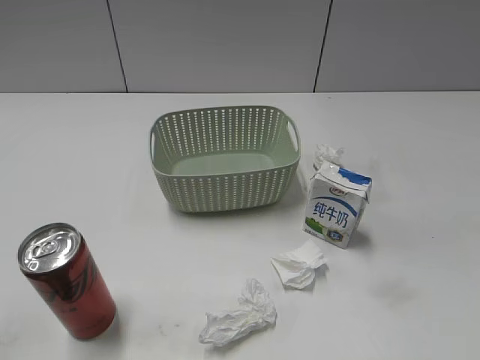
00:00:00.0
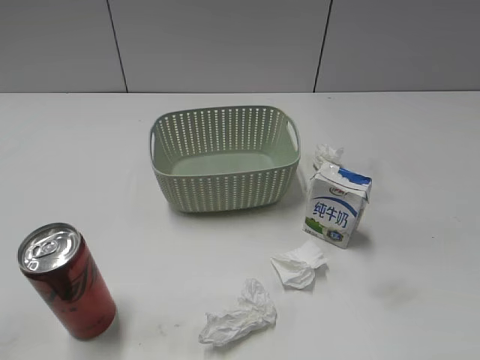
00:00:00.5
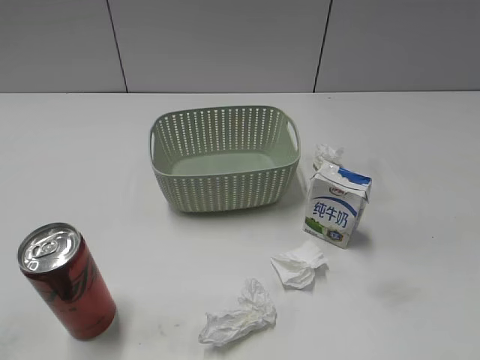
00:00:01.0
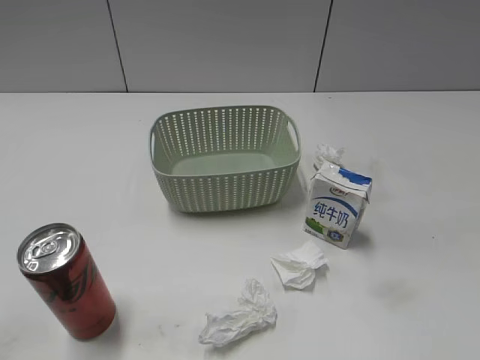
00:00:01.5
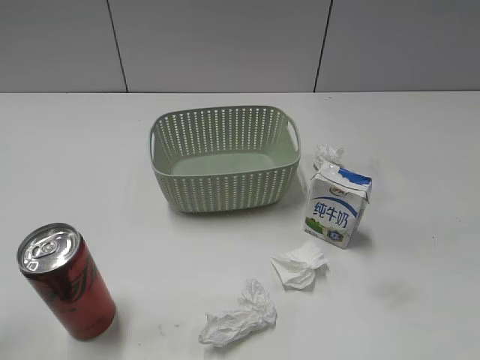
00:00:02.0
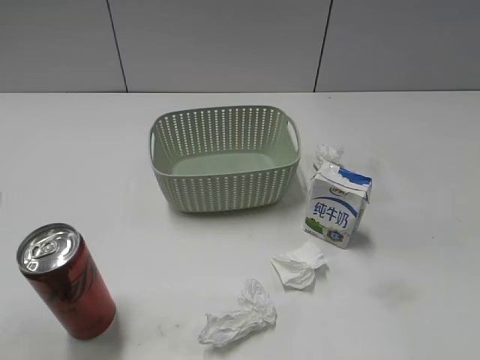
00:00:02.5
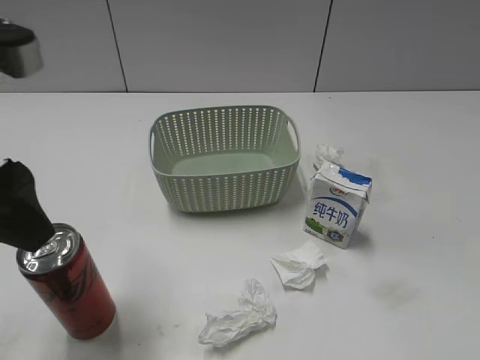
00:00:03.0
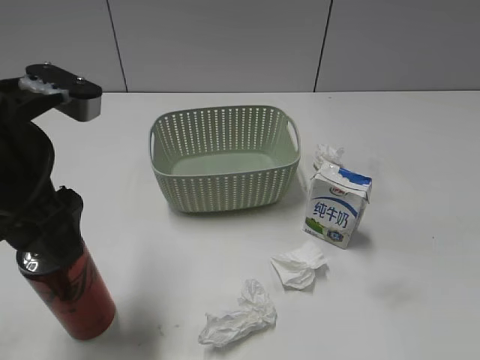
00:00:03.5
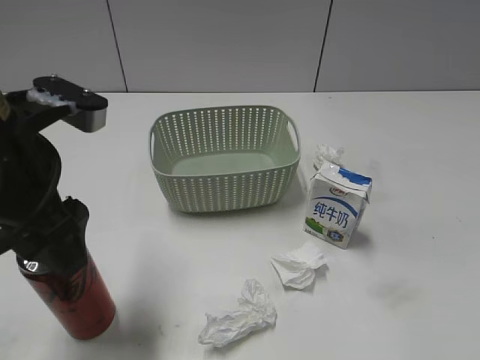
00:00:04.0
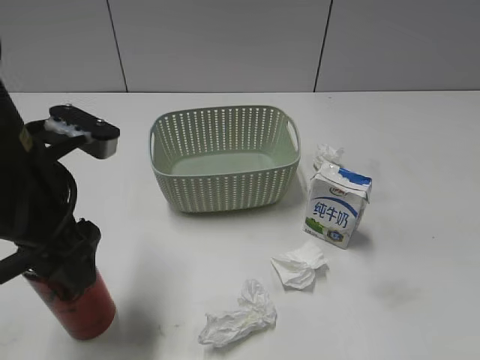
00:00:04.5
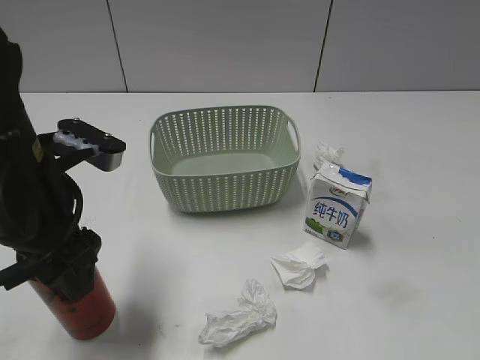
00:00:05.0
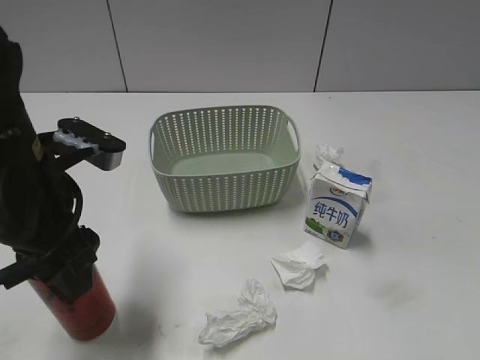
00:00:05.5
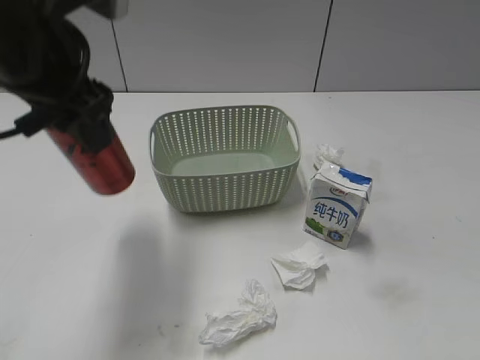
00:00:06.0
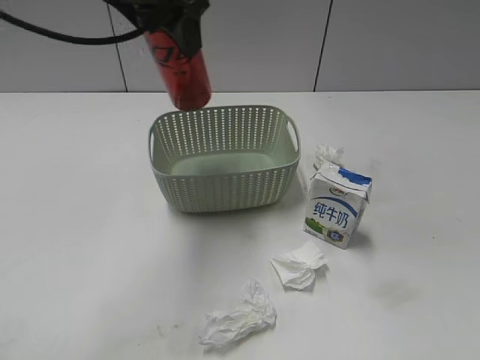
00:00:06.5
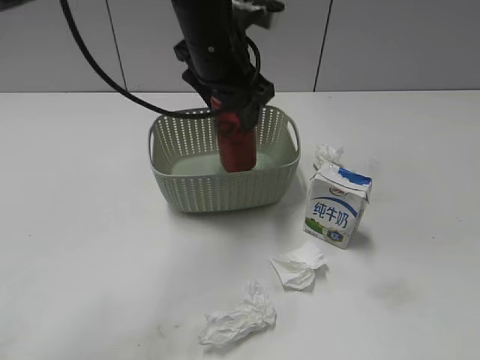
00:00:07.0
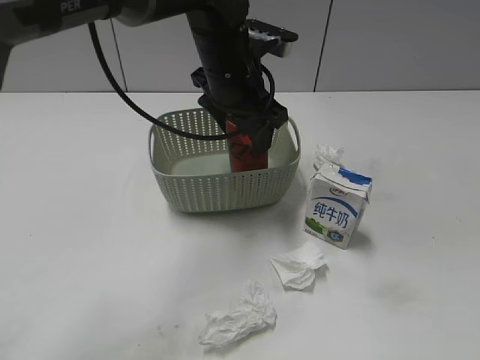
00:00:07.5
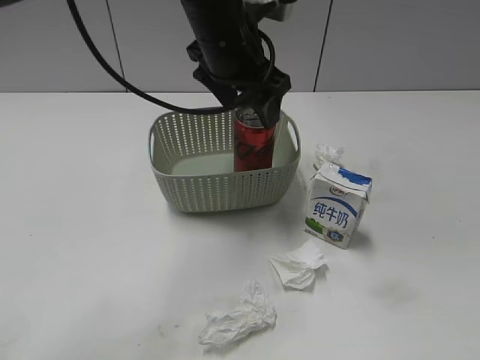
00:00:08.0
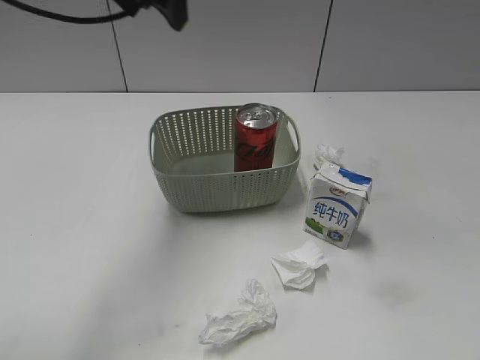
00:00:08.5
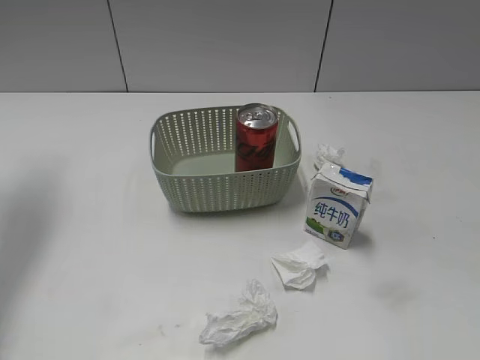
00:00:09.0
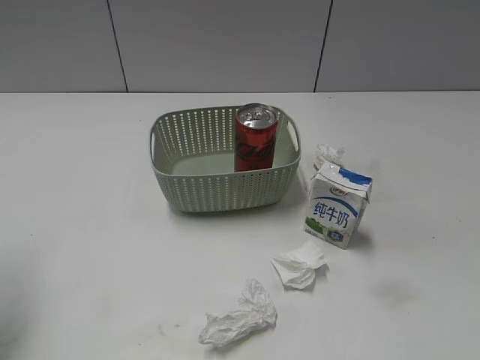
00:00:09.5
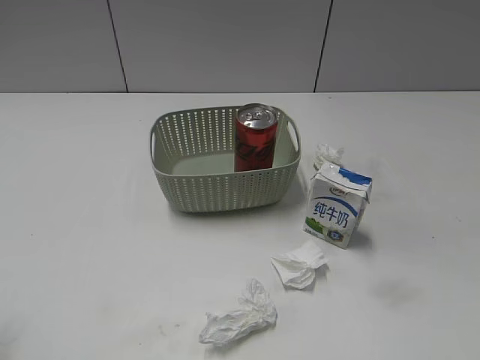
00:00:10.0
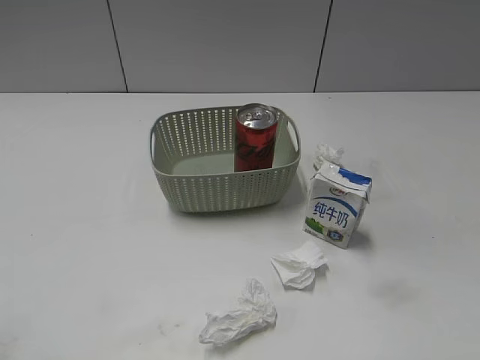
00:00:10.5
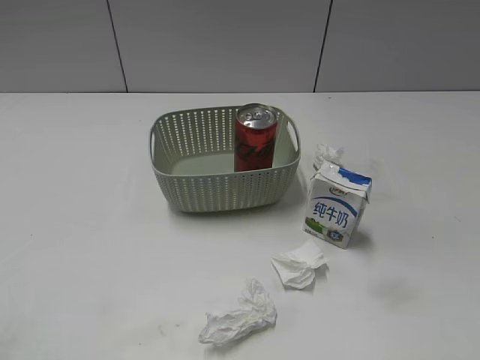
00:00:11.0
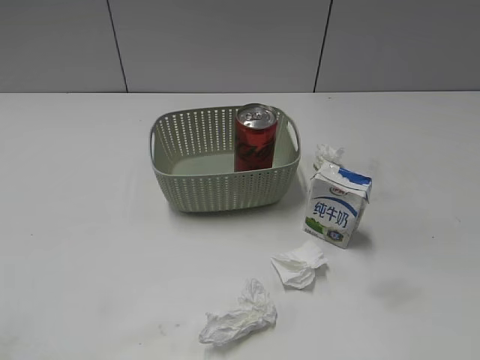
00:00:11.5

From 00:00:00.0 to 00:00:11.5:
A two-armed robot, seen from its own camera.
Step, from 00:00:03.0 to 00:00:05.5: Grasp the cola can with left gripper.
Step, from 00:00:06.0 to 00:00:08.0: Place the cola can in the basket with left gripper.
From 00:00:02.0 to 00:00:04.0: The left gripper moves forward, to the right and downward, roughly 15 cm.
From 00:00:04.0 to 00:00:06.0: The left gripper shifts approximately 10 cm upward and forward, and closes.
From 00:00:06.0 to 00:00:07.5: The left gripper heads to the right, forward and downward, covering some 20 cm.
From 00:00:07.5 to 00:00:09.5: The left gripper moves to the left and backward, approximately 35 cm, and opens up.
From 00:00:09.5 to 00:00:11.5: The left gripper travels backward by some 20 cm, and closes its fingers.
